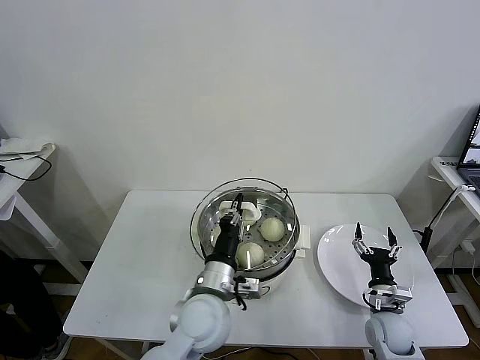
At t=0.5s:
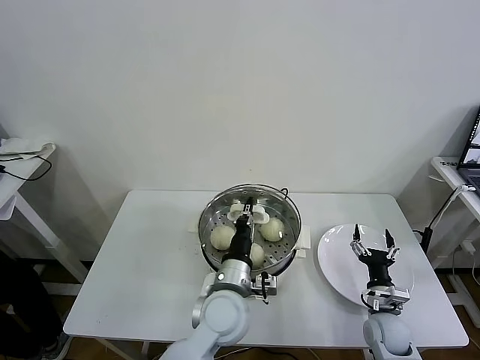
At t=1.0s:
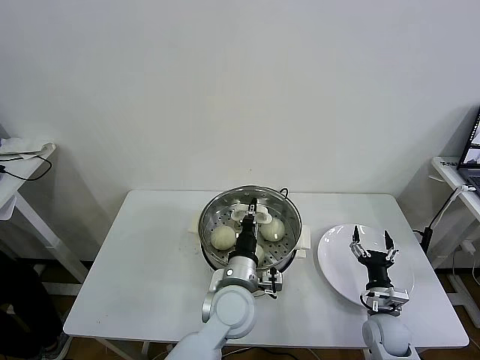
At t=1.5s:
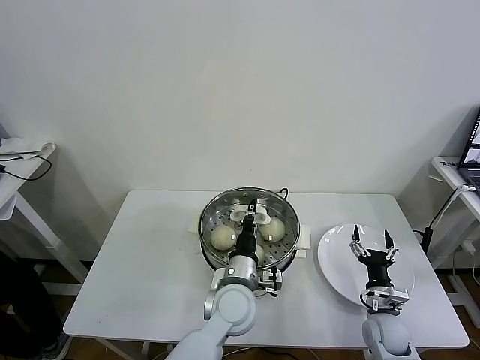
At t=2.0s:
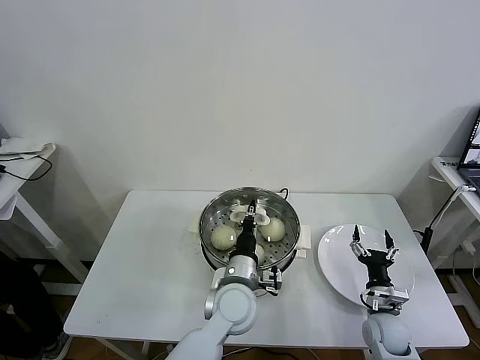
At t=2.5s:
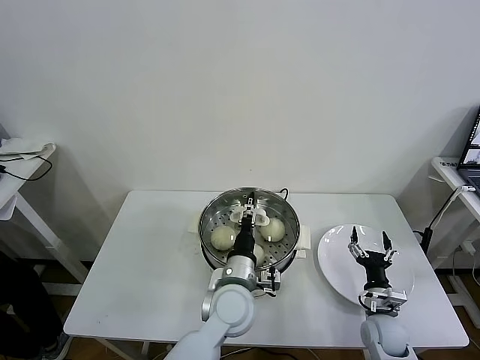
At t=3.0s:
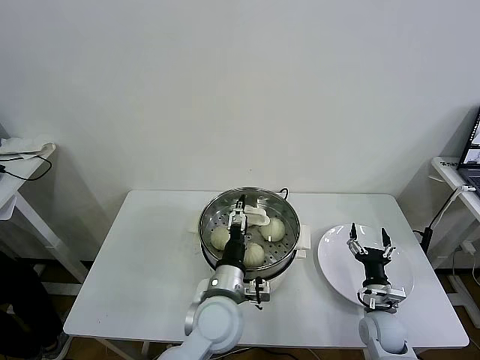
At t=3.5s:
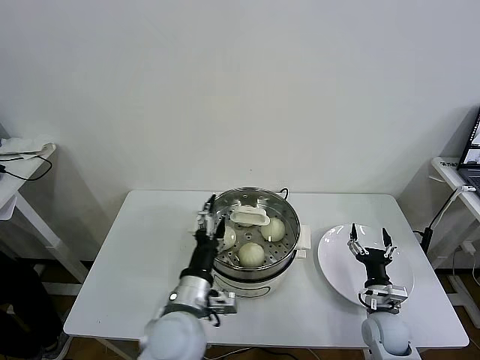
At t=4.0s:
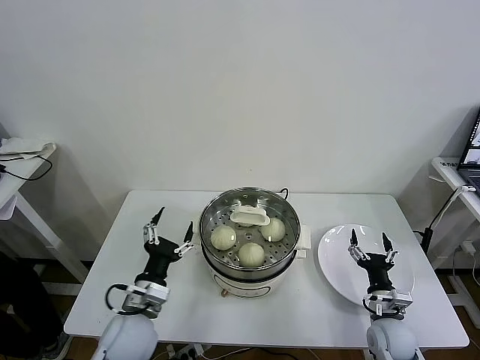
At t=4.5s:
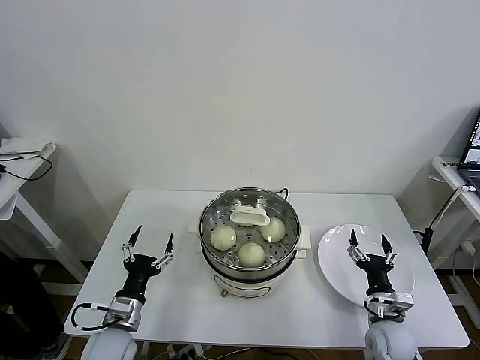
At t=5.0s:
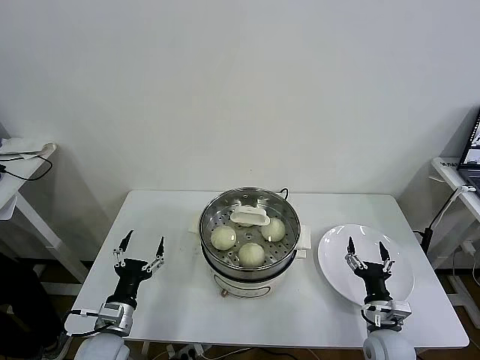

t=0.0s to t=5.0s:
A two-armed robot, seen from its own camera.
Task of the whole recording: take steamed baozi put them in steamer then cover it.
Step, t=0.0s to t=3.0s: Place the pot lid on the steamer with left gripper.
t=0.0s to t=2.5s: The left gripper travels to the right by approximately 5 cm, and opens.
t=2.5s to t=5.0s: The left gripper moves to the left, roughly 25 cm, and opens its fingers.
